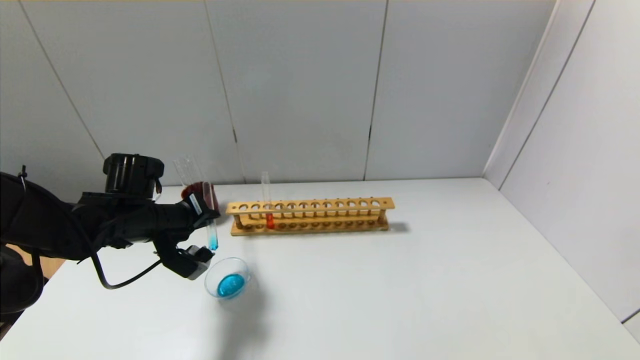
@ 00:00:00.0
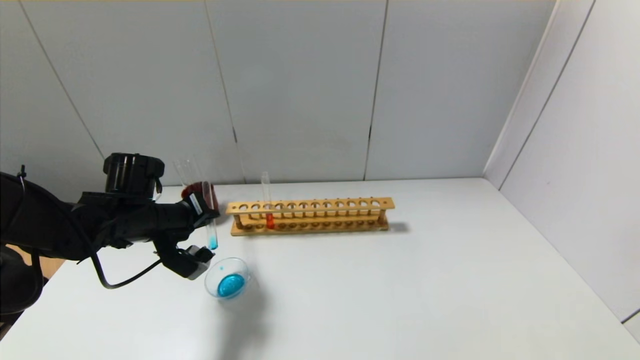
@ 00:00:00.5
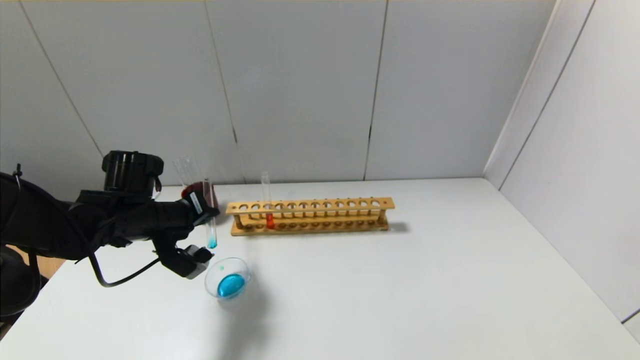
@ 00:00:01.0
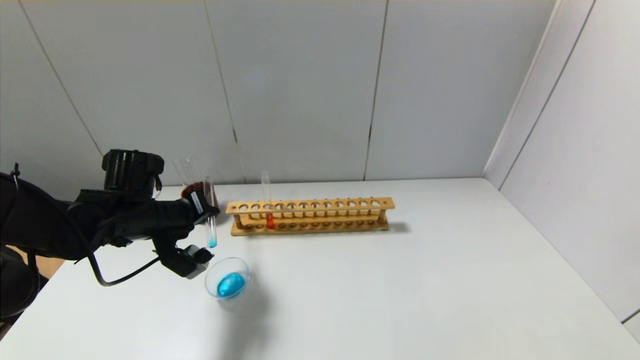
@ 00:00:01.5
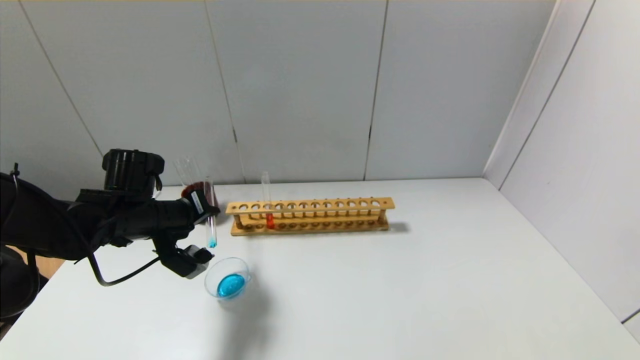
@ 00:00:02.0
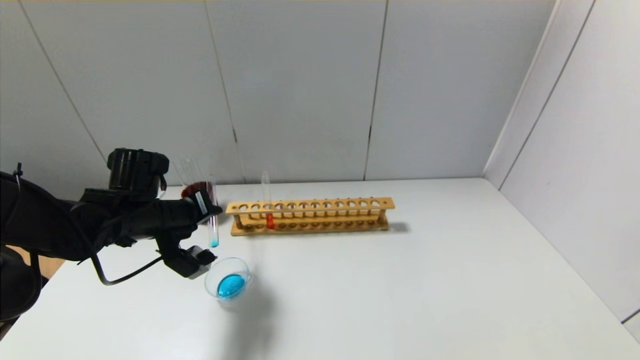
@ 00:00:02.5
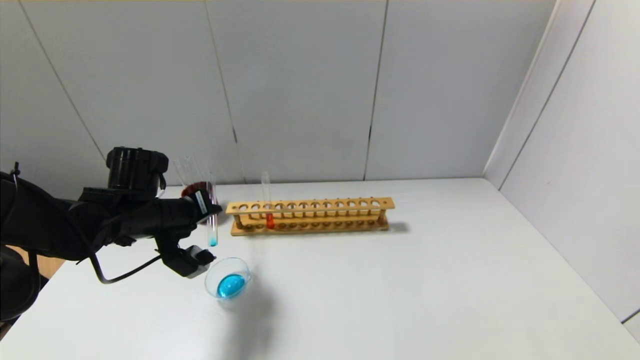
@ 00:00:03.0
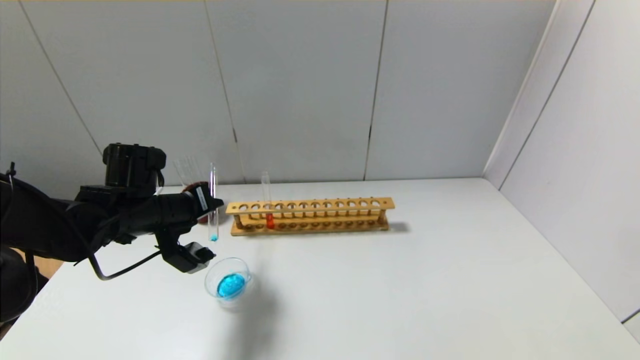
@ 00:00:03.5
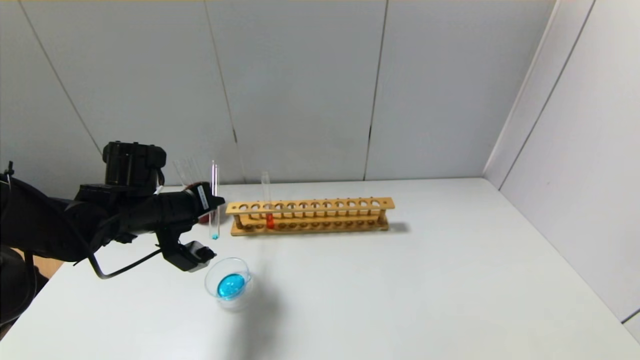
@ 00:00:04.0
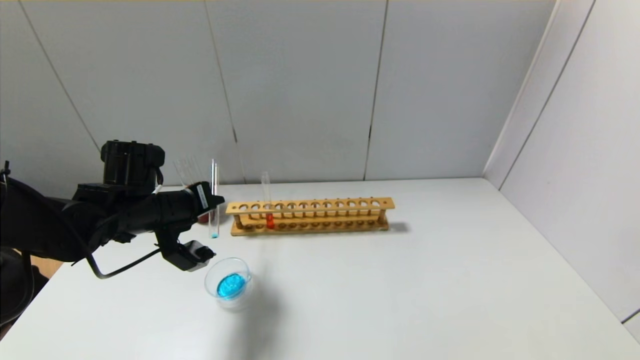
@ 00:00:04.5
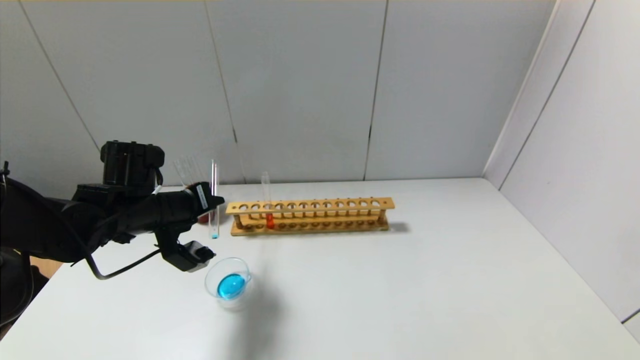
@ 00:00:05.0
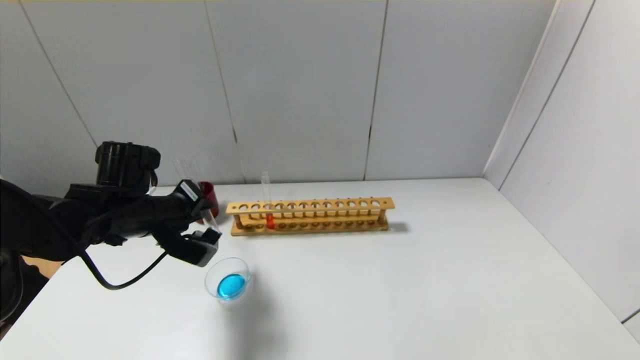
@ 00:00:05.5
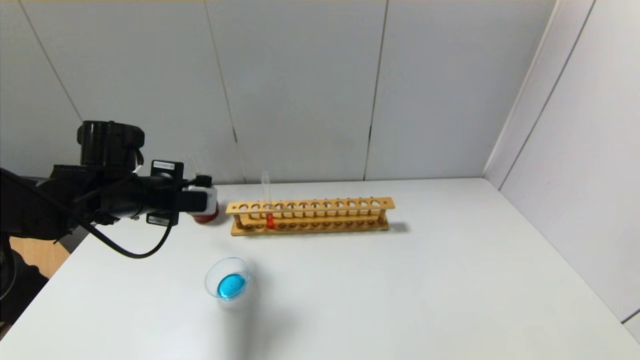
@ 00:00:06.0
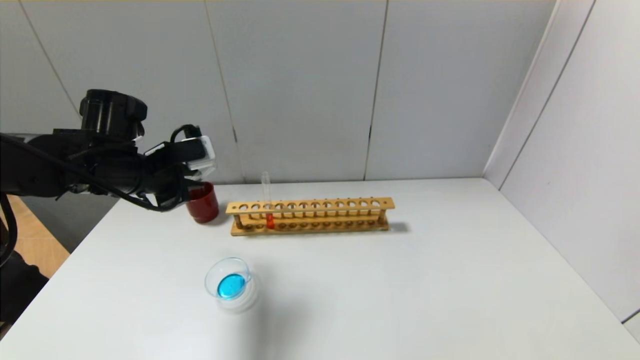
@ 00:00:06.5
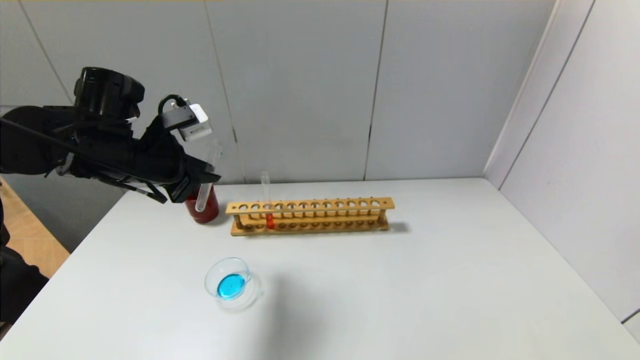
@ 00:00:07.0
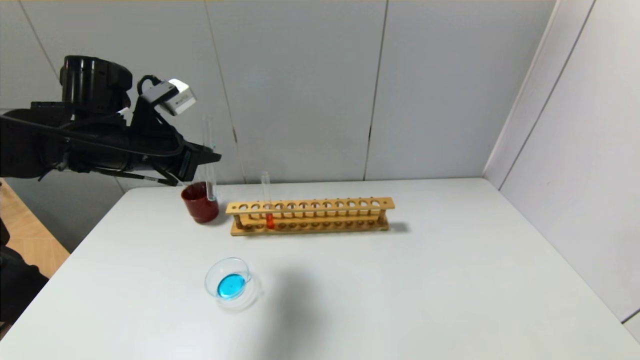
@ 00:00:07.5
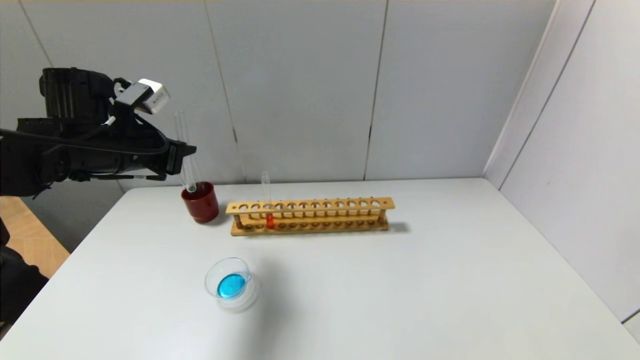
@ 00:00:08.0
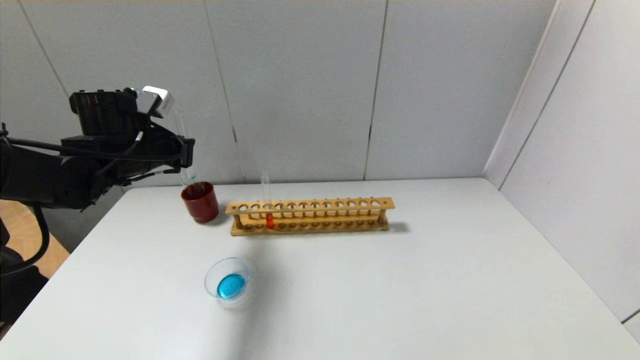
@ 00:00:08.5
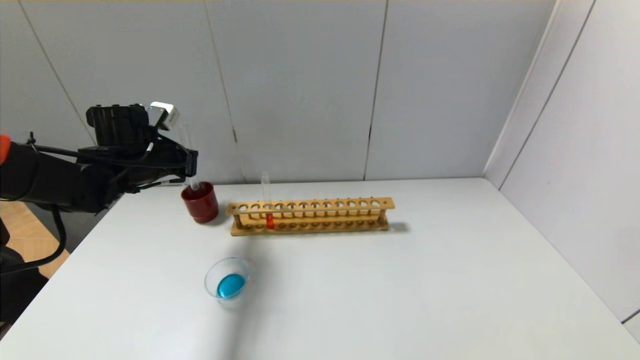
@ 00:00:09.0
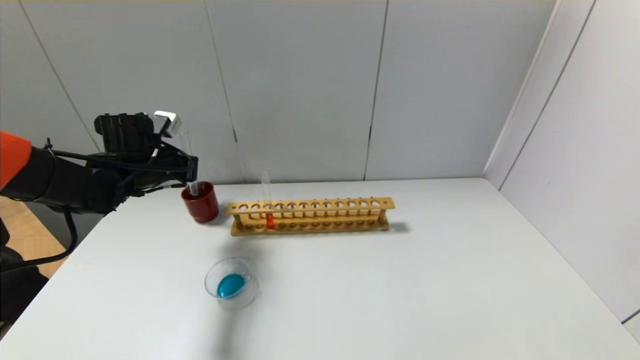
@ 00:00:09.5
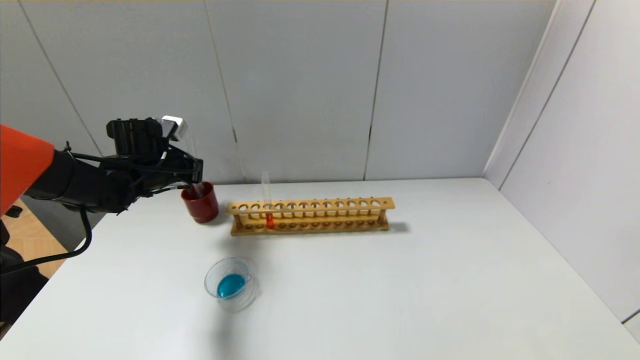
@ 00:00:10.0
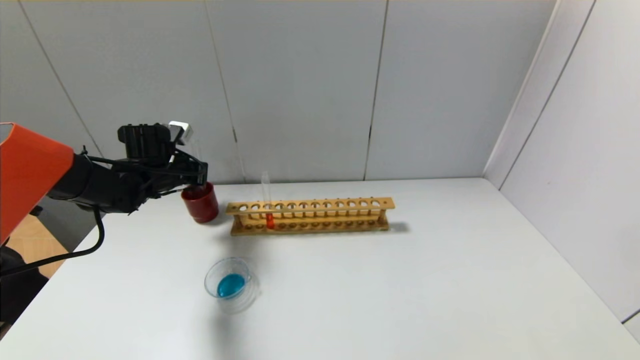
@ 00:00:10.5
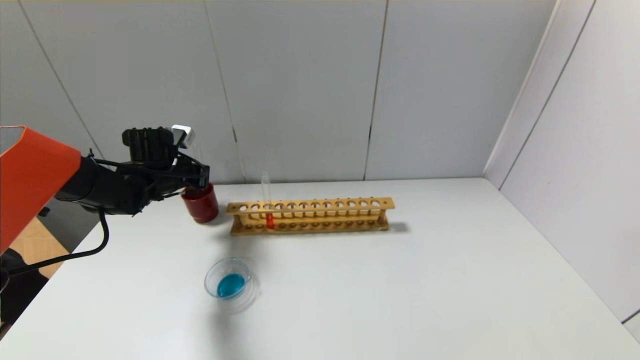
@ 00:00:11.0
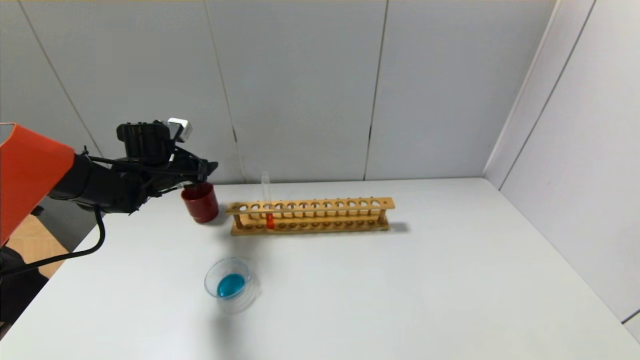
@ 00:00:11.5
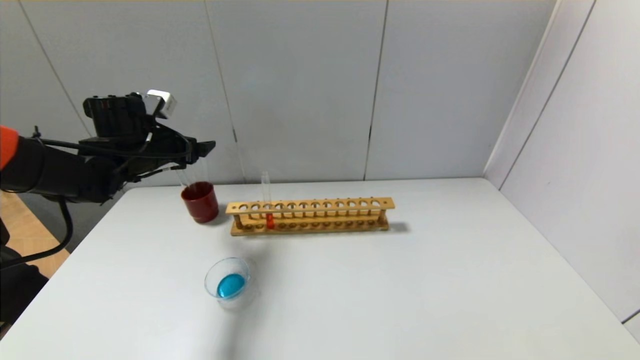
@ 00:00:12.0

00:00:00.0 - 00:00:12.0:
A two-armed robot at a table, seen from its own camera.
Step, 00:00:00.0 - 00:00:05.5: Pour the blue reagent into the graduated cylinder with the left gripper.
Step, 00:00:06.0 - 00:00:11.0: Place the test tube into the brown cup with the left gripper.
00:00:00.0 - 00:00:04.0: There are only small adjustments of the grippers.
00:00:06.0 - 00:00:08.0: The left gripper goes roughly 5 cm upward.
00:00:08.0 - 00:00:10.0: The left gripper goes roughly 10 cm forward and downward.
00:00:10.0 - 00:00:12.0: The left gripper is displaced upward by roughly 5 cm, and opens its fingers.

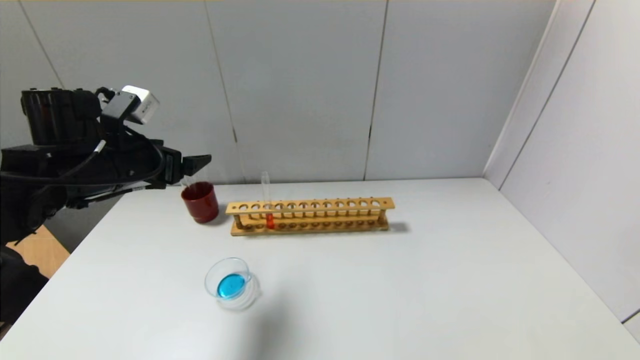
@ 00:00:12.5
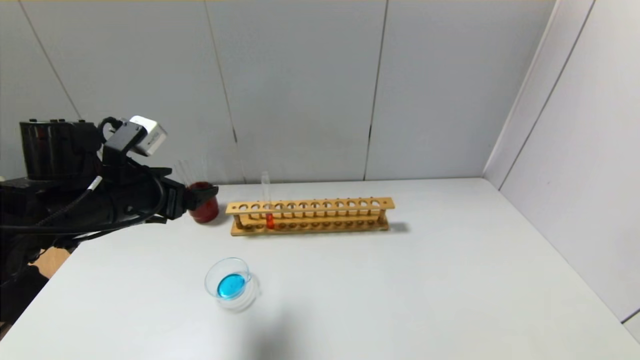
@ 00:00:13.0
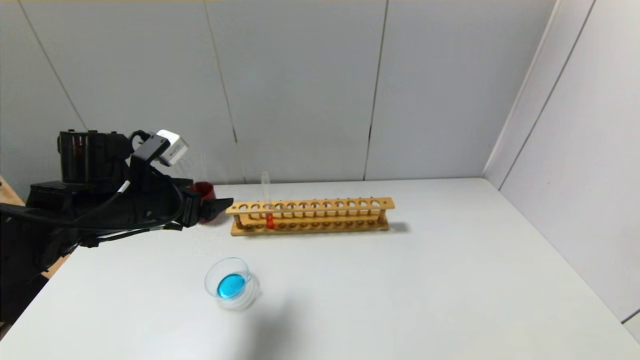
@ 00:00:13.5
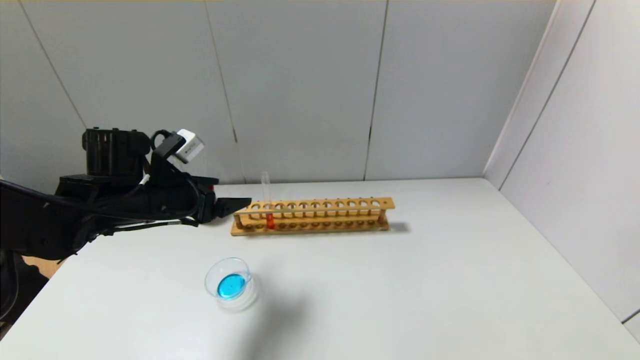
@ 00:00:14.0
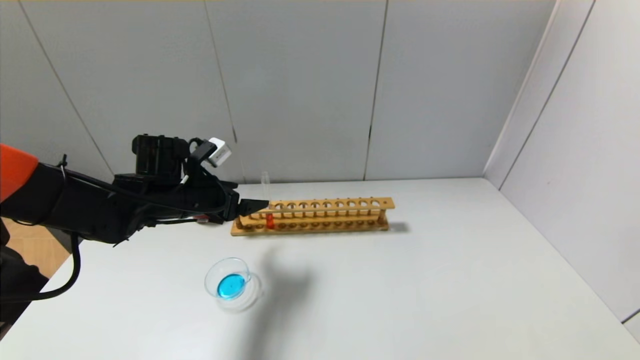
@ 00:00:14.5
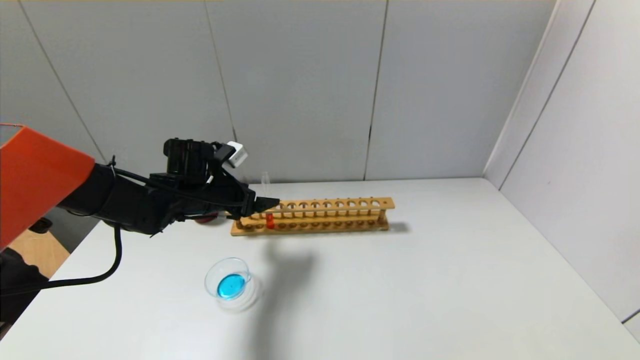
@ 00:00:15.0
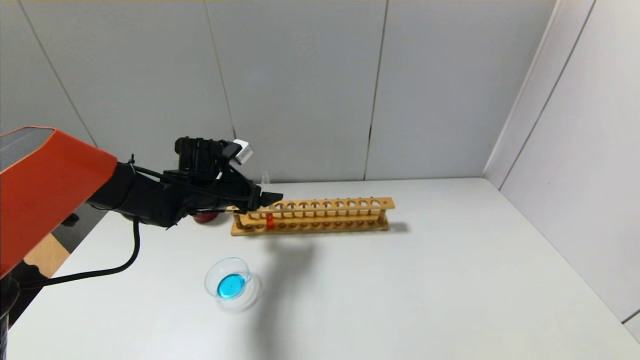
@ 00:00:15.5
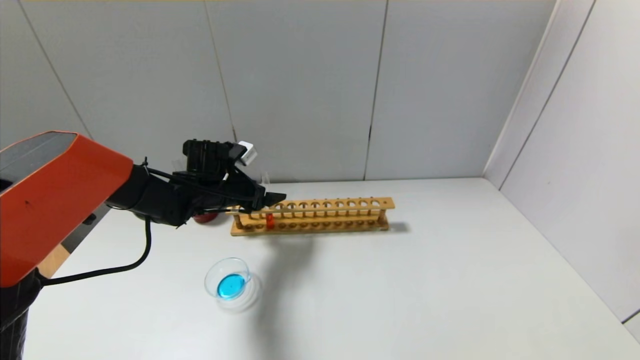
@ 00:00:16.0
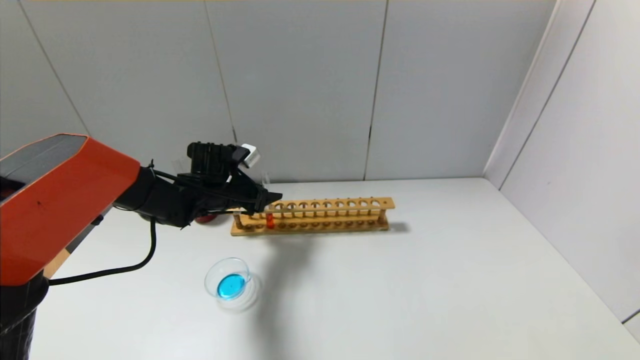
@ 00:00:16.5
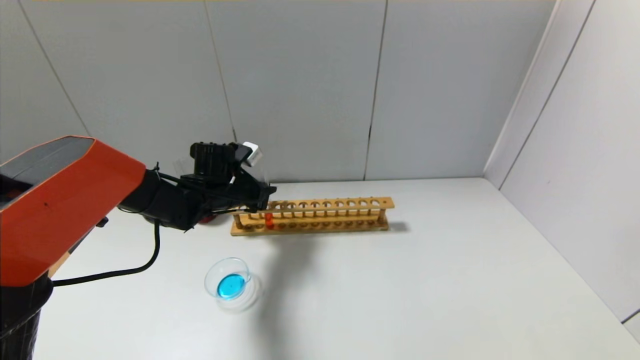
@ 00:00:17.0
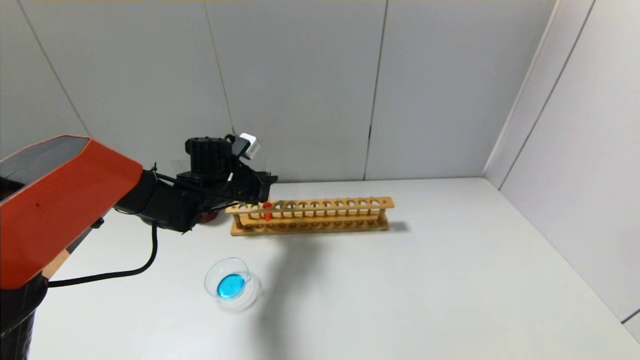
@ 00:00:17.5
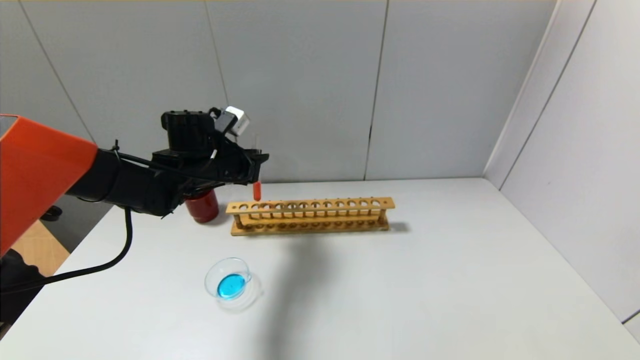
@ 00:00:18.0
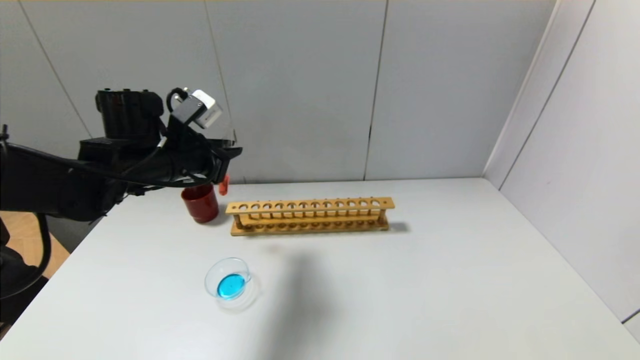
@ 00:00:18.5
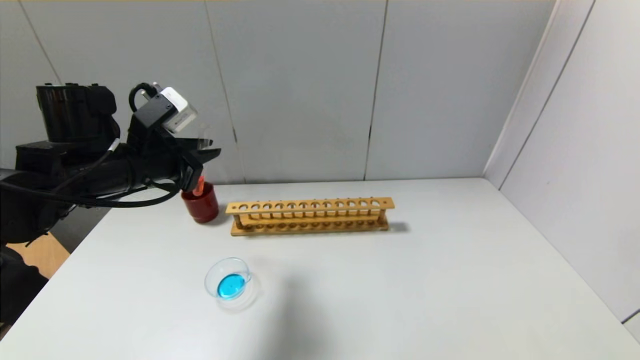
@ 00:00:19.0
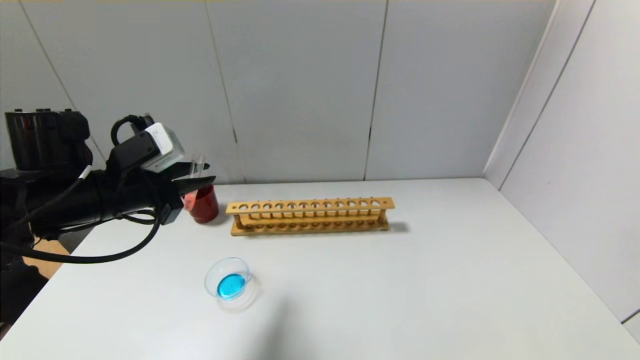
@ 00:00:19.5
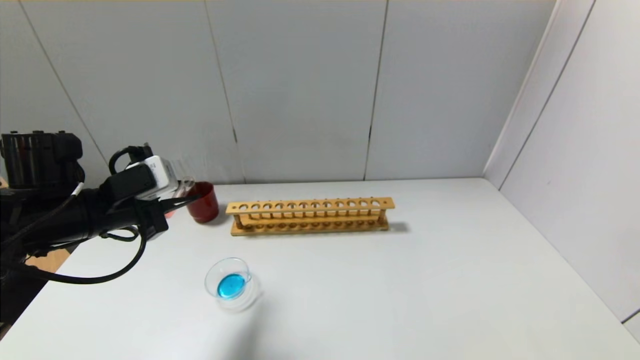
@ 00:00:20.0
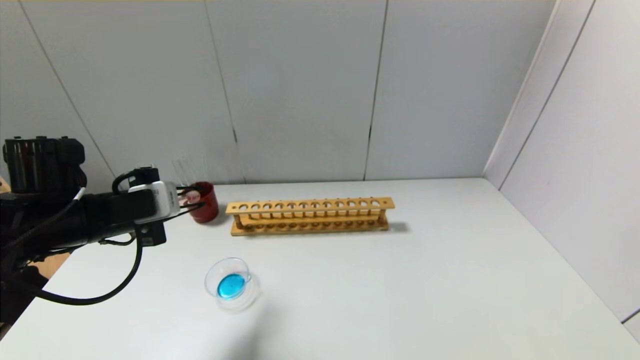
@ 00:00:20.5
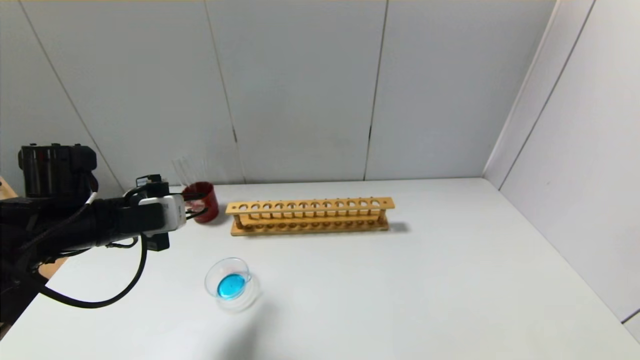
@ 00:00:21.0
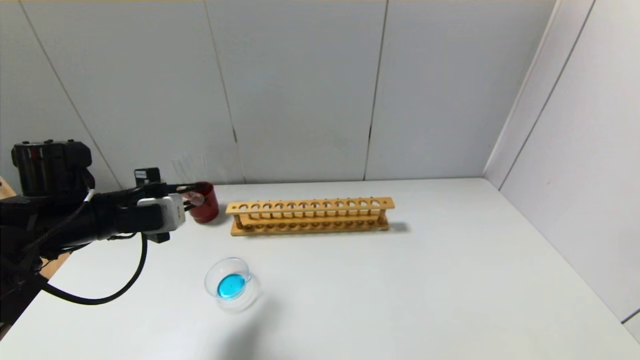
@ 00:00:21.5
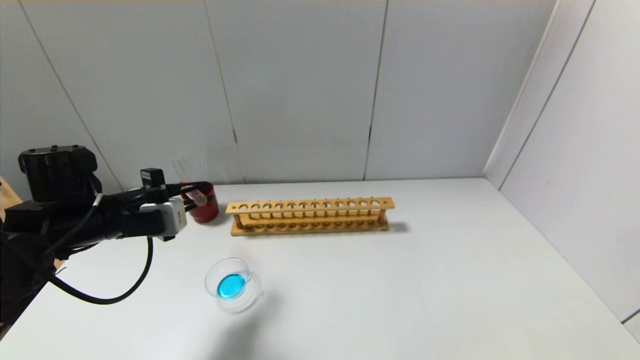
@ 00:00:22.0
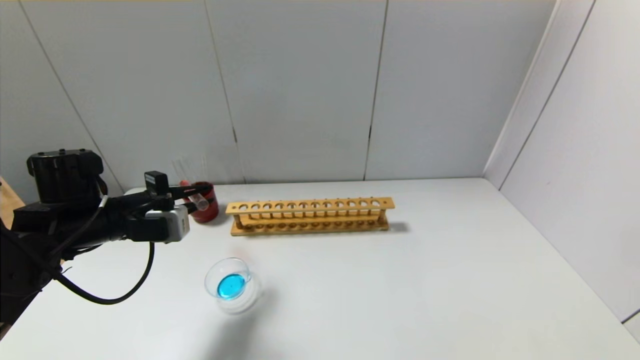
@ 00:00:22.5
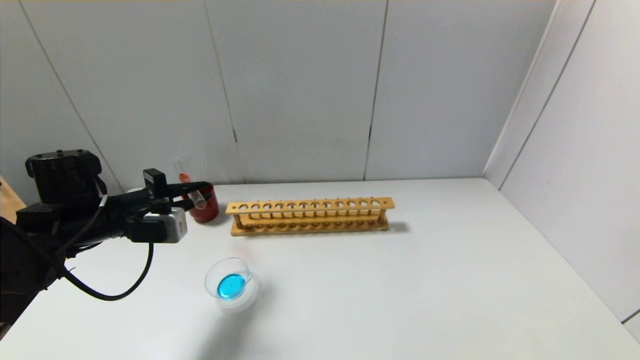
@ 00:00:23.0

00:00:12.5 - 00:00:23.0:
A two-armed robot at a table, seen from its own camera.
Step, 00:00:12.5 - 00:00:17.0: Grasp the red reagent with the left gripper.
00:00:12.5 - 00:00:14.5: The left gripper shifts some 10 cm downward and forward.
00:00:14.5 - 00:00:16.5: The left gripper heads forward, covering approximately 5 cm, and closes its fingers.
00:00:16.5 - 00:00:19.0: The left gripper shifts some 20 cm upward, backward and to the left, and closes.
00:00:19.0 - 00:00:21.0: The left gripper travels downward by approximately 5 cm.
